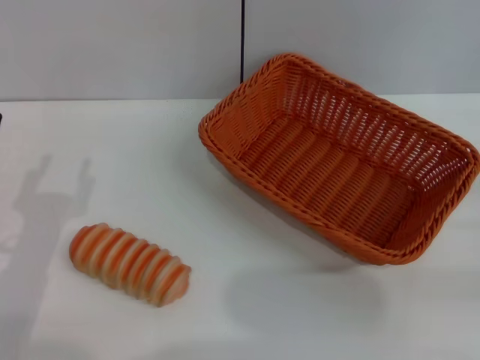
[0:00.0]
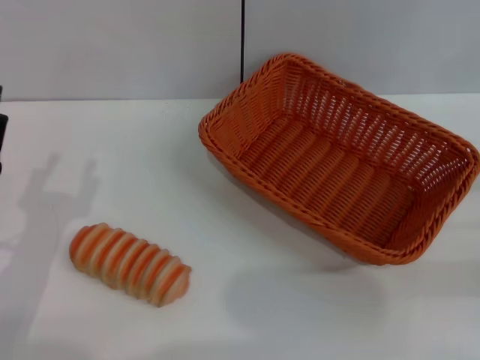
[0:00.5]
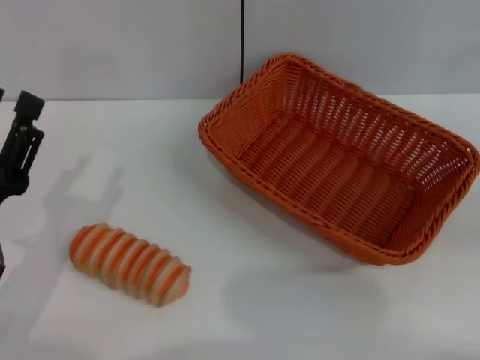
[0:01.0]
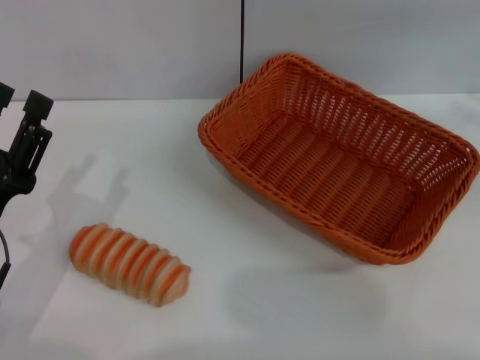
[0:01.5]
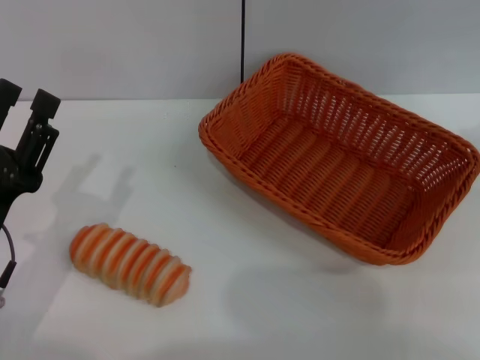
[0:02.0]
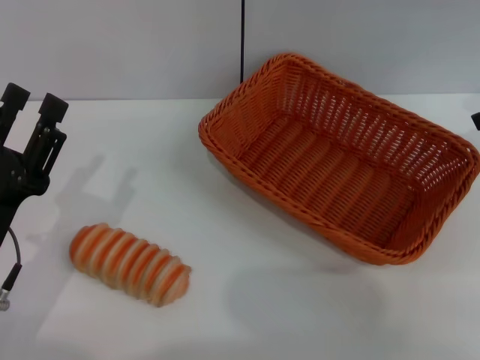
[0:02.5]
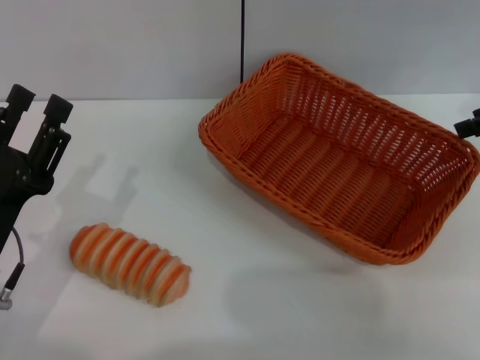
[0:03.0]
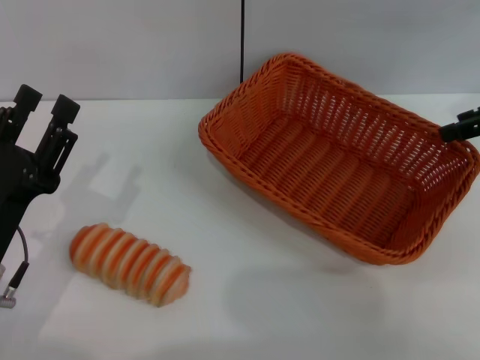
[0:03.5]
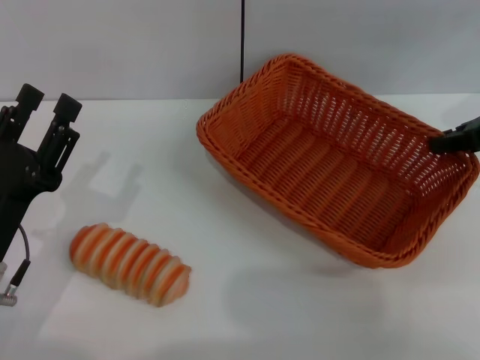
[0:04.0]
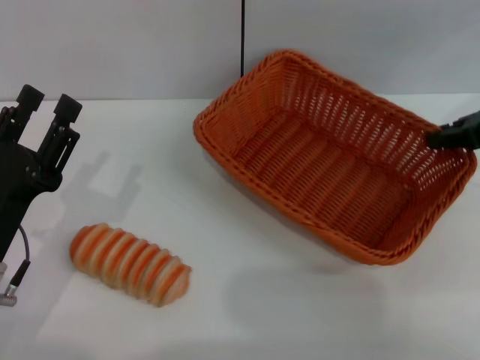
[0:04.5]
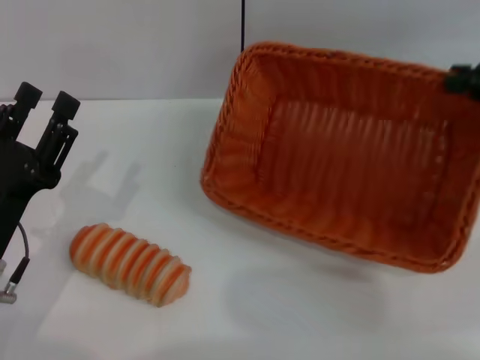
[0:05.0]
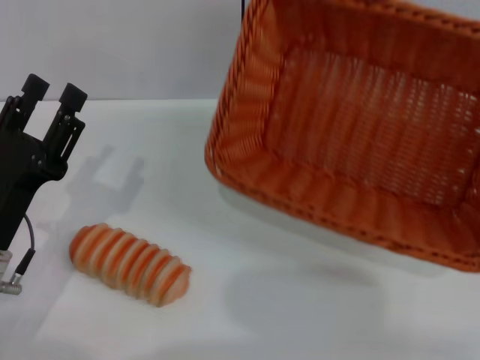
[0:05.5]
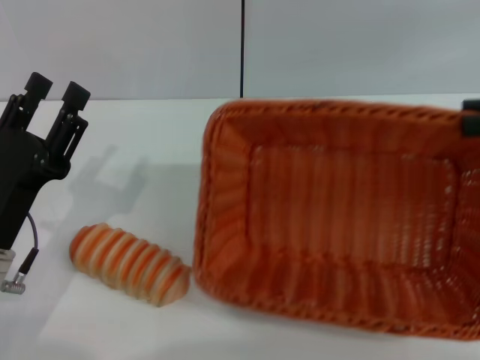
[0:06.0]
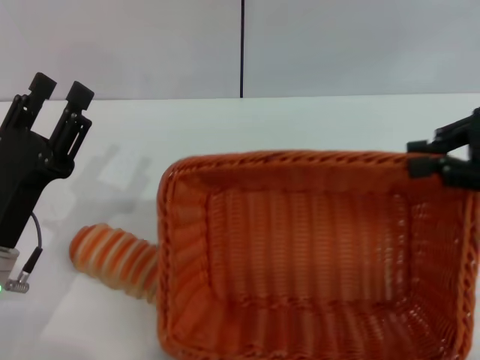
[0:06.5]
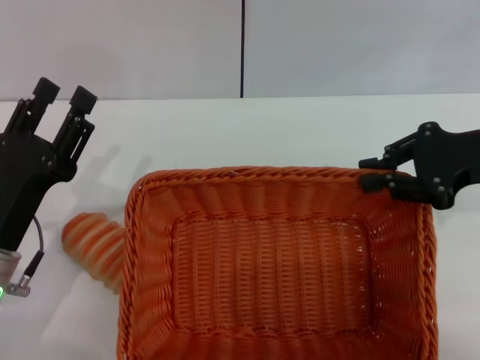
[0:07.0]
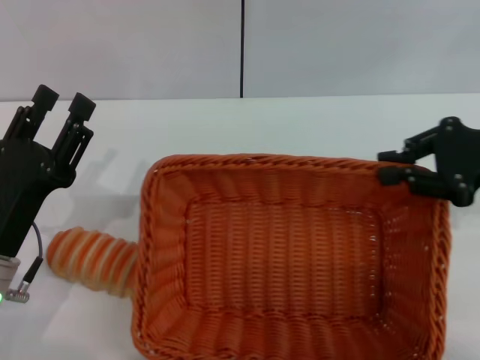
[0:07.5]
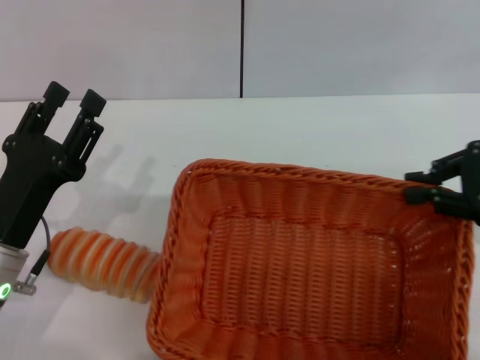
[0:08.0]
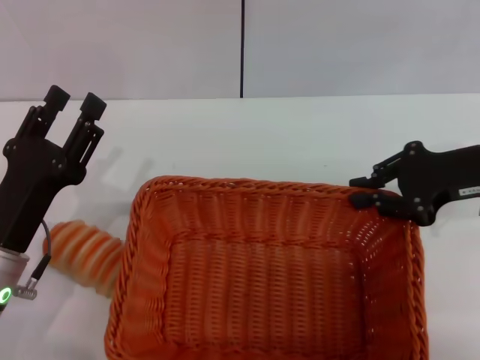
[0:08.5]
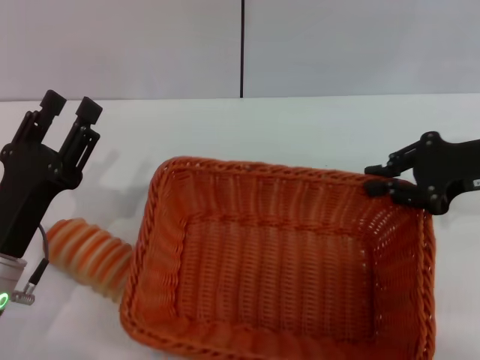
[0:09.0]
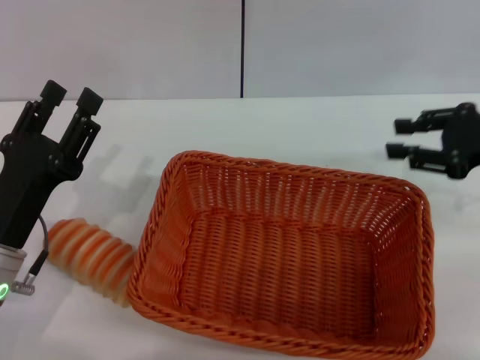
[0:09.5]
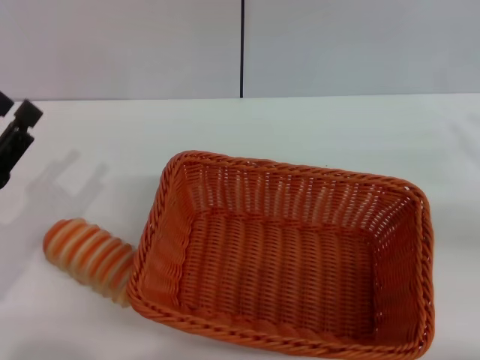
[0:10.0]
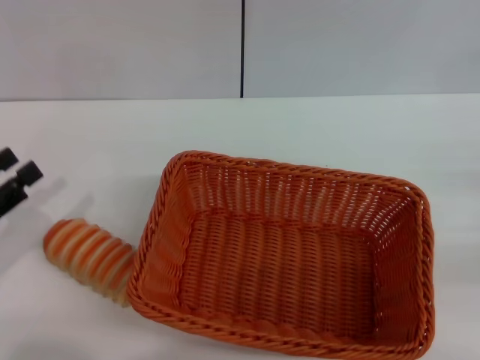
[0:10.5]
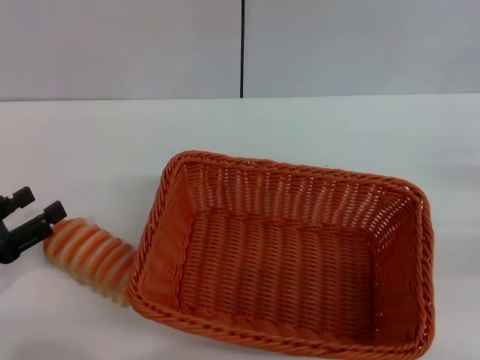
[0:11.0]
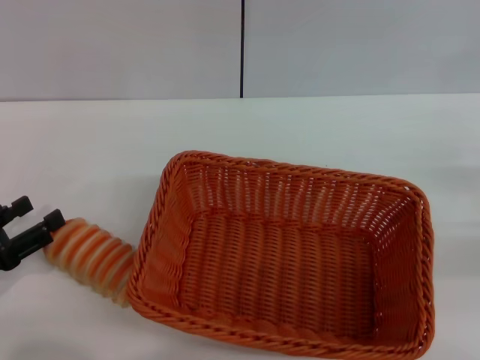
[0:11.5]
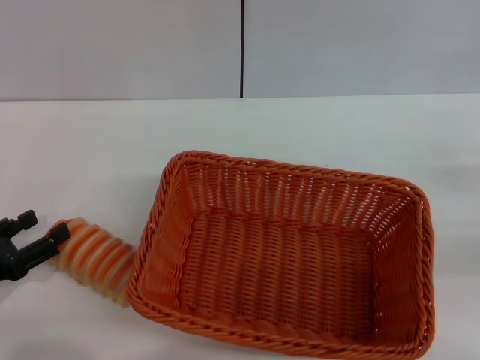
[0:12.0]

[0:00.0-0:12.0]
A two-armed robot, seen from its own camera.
Step, 0:00.0 to 0:05.5: Pick up the light basket with the right gripper.
Step, 0:06.0 to 0:09.5: Place the light basket in the center of view with the right gripper.
0:00.0 to 0:02.0: The right gripper travels upward and forward by roughly 25 cm.
0:02.0 to 0:04.0: The right gripper travels downward and to the left by roughly 10 cm, and closes.
0:04.0 to 0:06.0: The right gripper heads backward, covering about 5 cm.
0:06.0 to 0:08.0: The right gripper is displaced downward by approximately 5 cm.
0:08.0 to 0:10.0: The right gripper goes approximately 5 cm to the right, and opens up. The left gripper shifts about 5 cm to the left.
0:10.0 to 0:12.0: The left gripper shifts by some 5 cm.

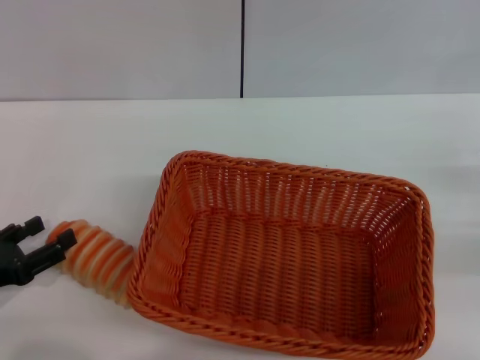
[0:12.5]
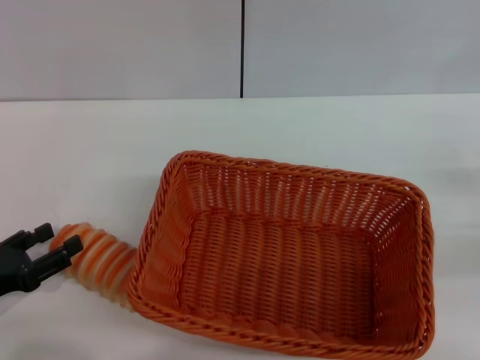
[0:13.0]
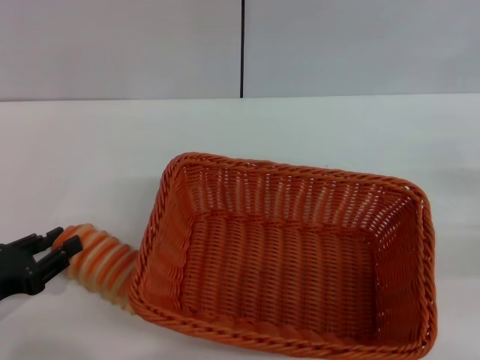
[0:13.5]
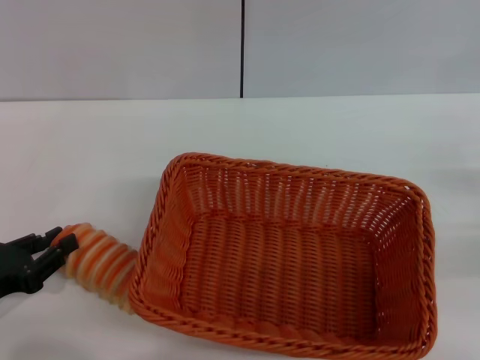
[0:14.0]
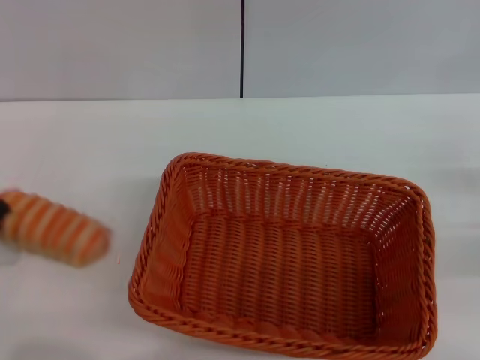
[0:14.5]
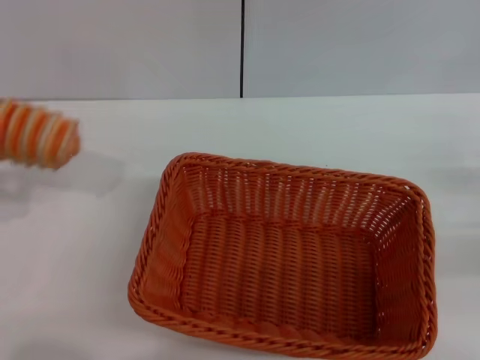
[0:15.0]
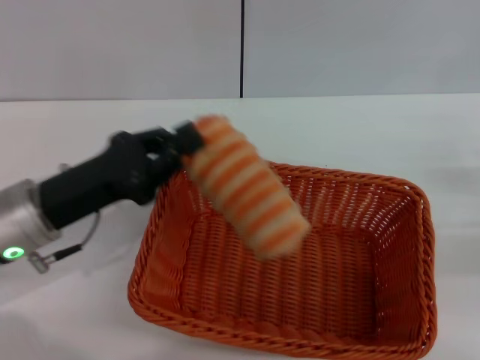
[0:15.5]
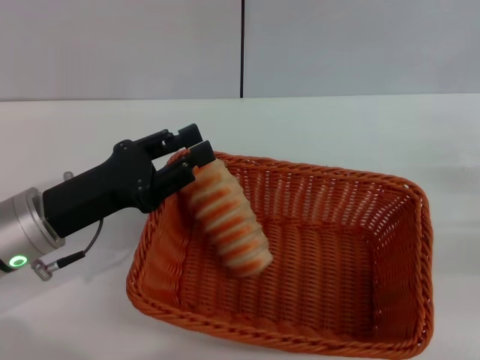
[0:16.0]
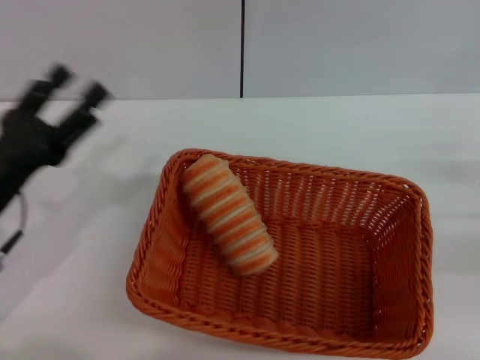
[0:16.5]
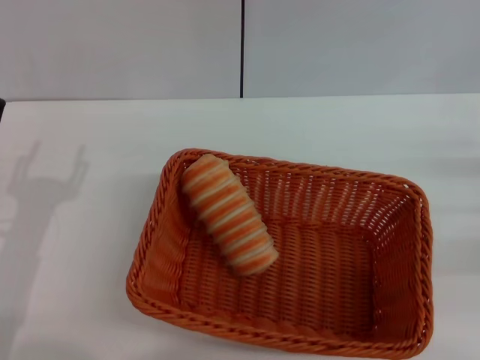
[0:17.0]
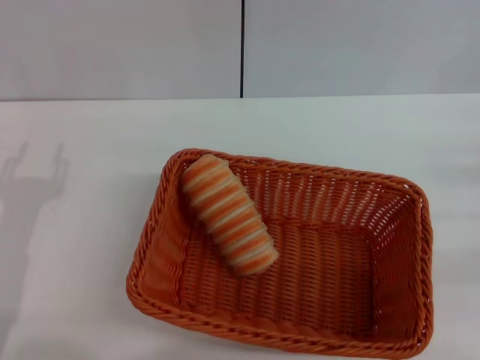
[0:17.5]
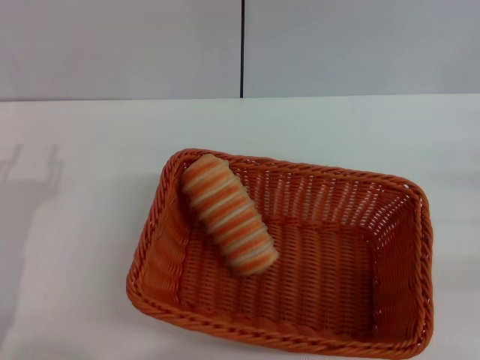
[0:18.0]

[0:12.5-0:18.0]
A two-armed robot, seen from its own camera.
Step, 0:12.5 to 0:15.0: Pick up the long bread with the left gripper.
Step, 0:15.5 to 0:16.0: Place the long bread into the light basket with the left gripper.
0:12.5 to 0:14.5: The left gripper closes.
0:14.5 to 0:16.0: The left gripper goes some 15 cm to the right and forward.
0:16.0 to 0:18.0: The left gripper heads backward and to the left, covering some 10 cm, and opens.

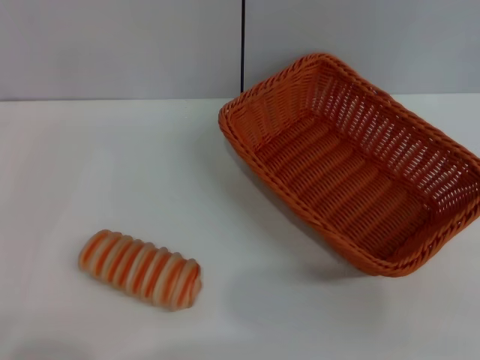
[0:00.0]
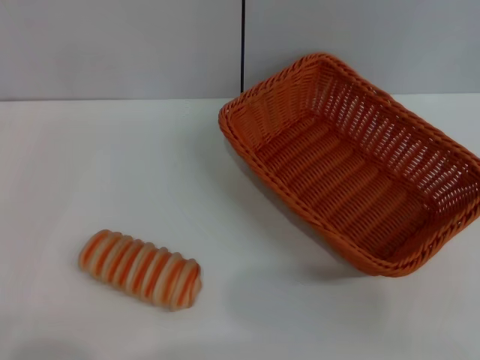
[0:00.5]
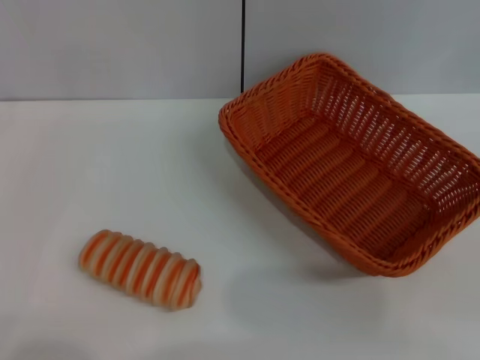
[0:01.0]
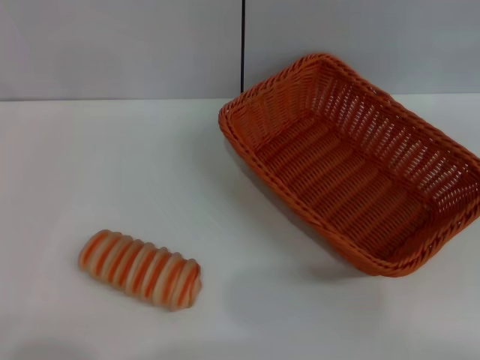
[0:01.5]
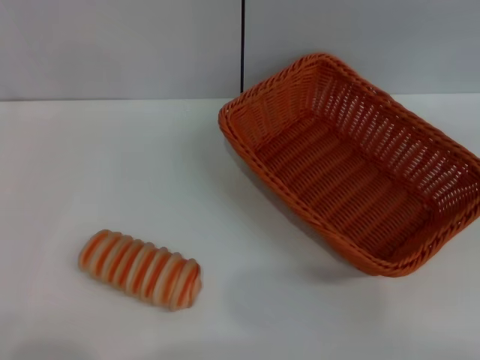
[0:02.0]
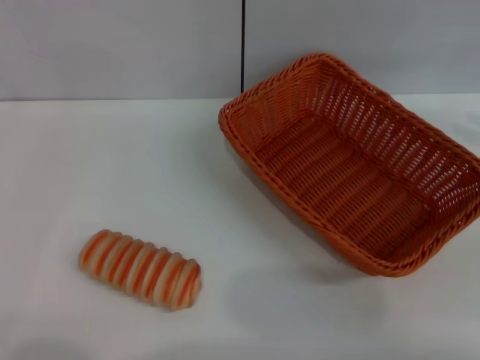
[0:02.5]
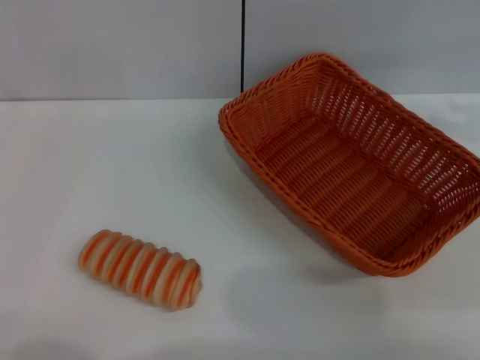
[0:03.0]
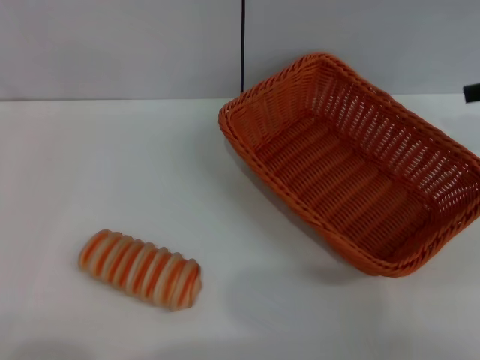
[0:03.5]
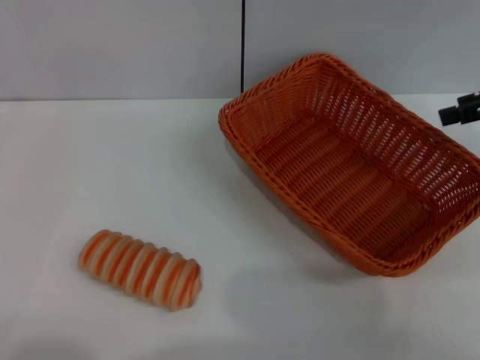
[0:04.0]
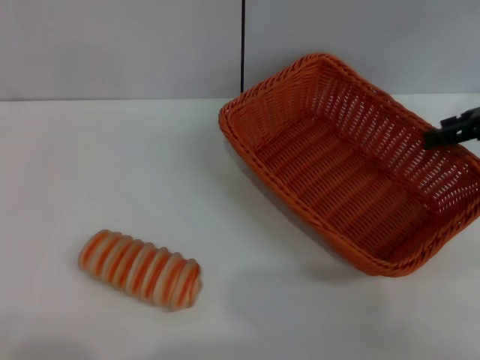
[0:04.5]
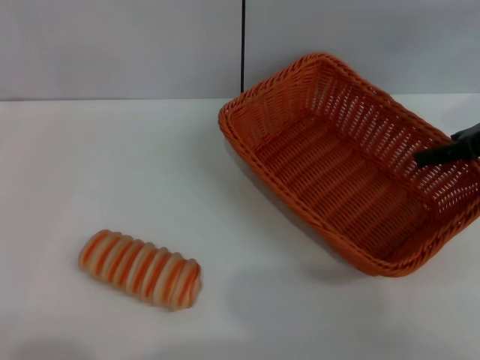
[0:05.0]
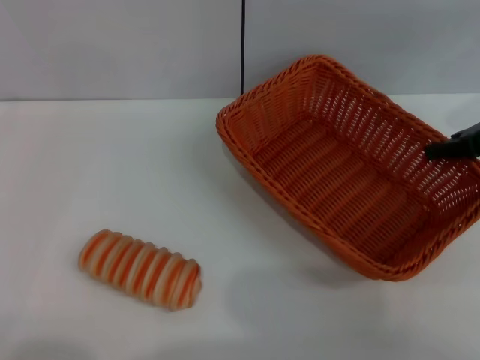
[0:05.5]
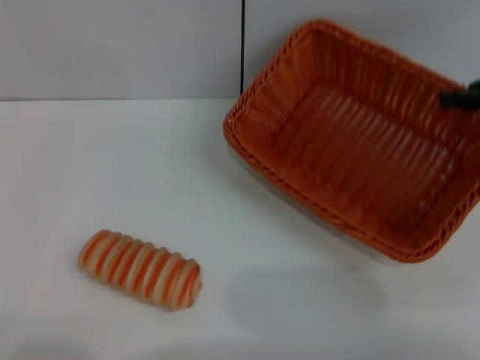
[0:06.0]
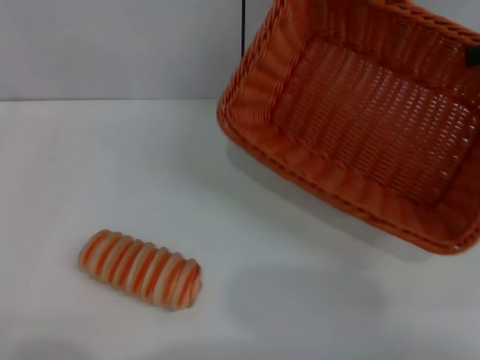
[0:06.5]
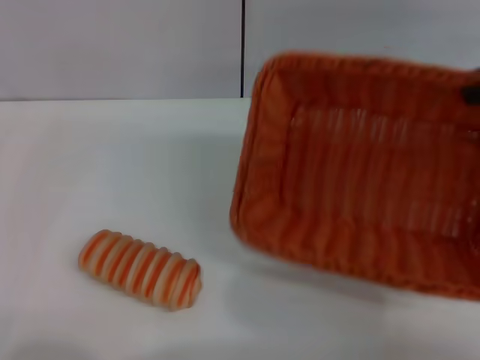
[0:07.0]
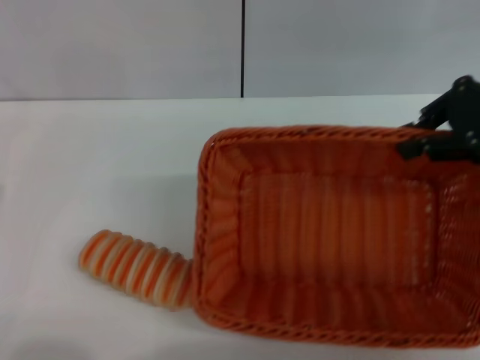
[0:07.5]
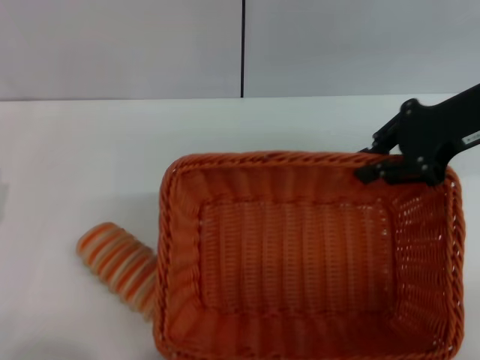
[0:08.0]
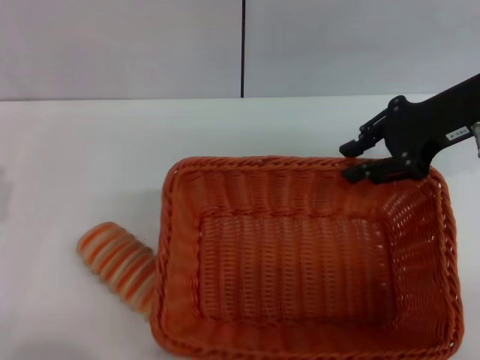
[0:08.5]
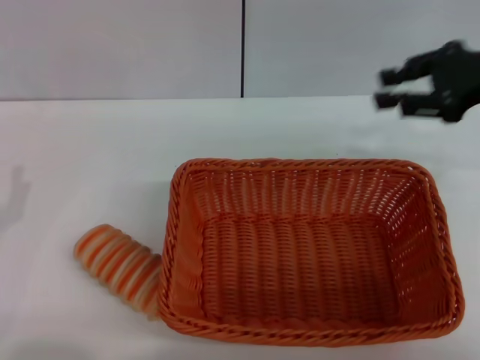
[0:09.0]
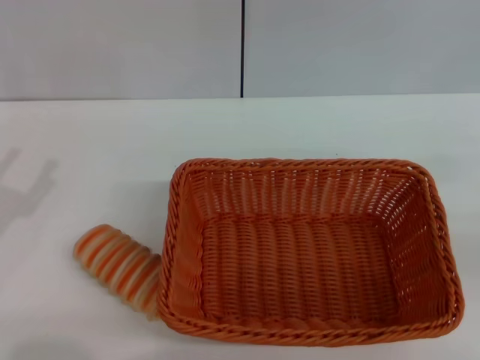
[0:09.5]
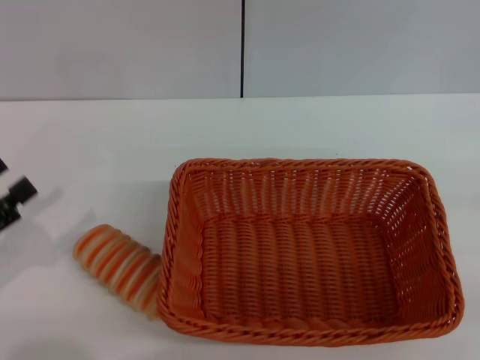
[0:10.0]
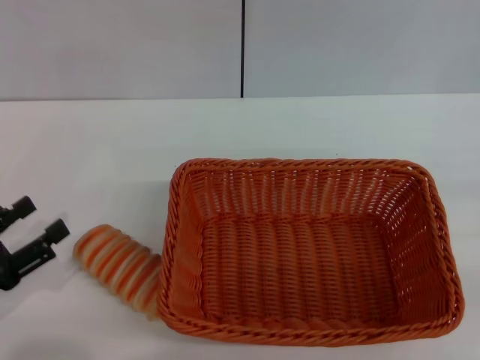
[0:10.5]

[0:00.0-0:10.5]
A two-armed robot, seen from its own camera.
Step, 0:00.0 to 0:06.0: Pick up the light basket with the right gripper.
Step, 0:06.5 to 0:08.5: Place the light basket in the center of view with the right gripper.
0:02.0 to 0:04.0: The right gripper shifts some 15 cm downward, forward and to the left, and opens.
0:04.0 to 0:06.5: The right gripper closes its fingers.
0:06.5 to 0:08.5: The right gripper heads to the left, covering some 10 cm.
0:08.5 to 0:10.5: The right gripper shifts roughly 30 cm to the right, backward and downward.
